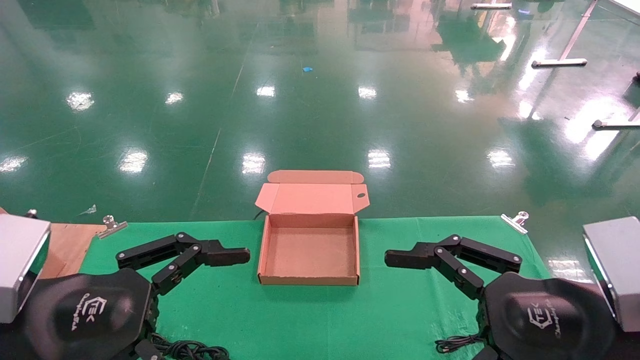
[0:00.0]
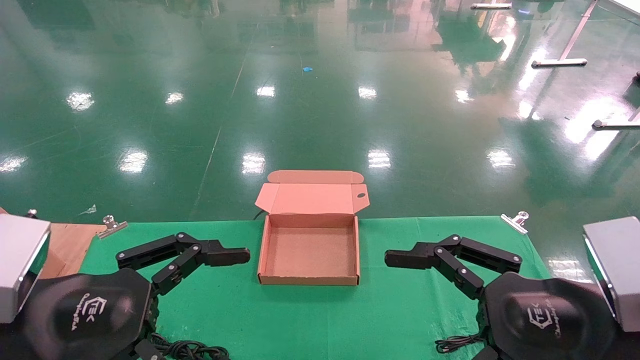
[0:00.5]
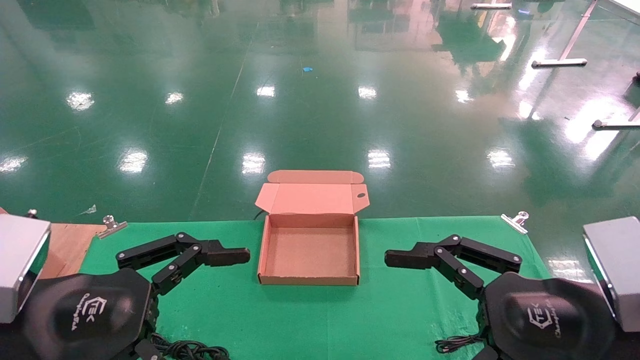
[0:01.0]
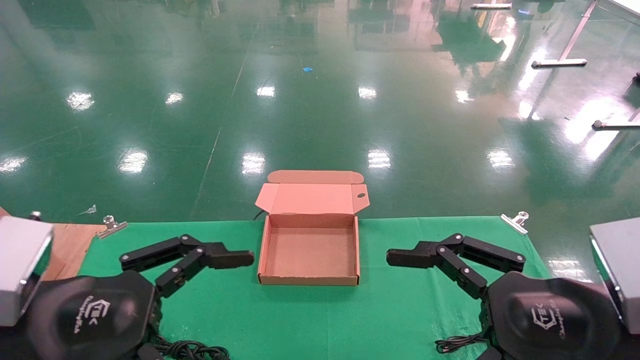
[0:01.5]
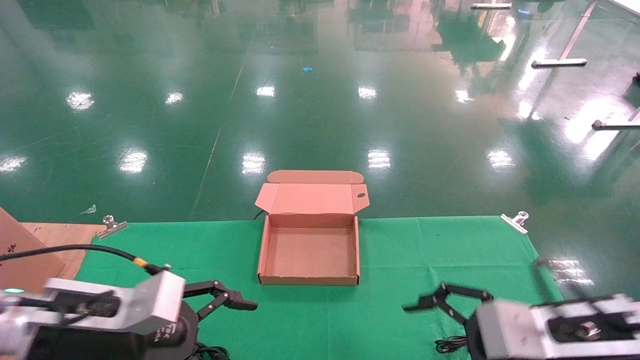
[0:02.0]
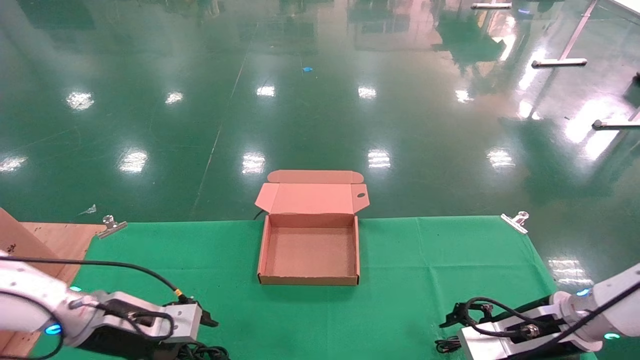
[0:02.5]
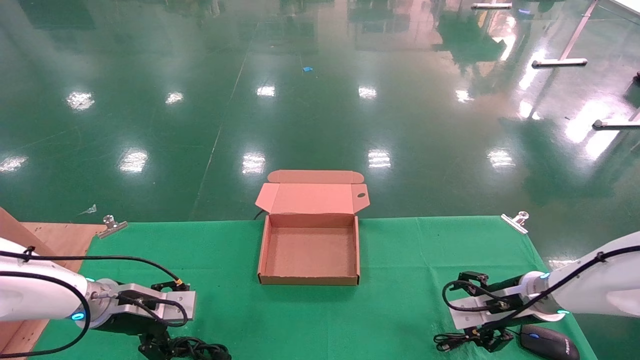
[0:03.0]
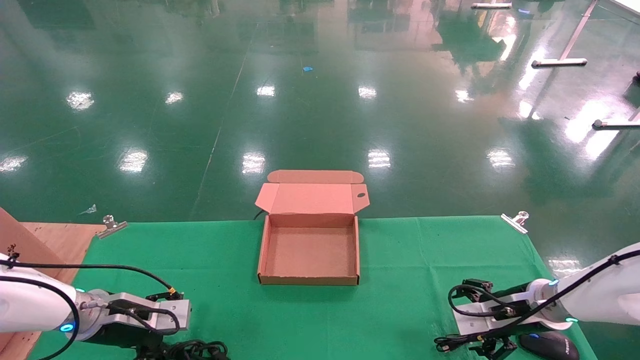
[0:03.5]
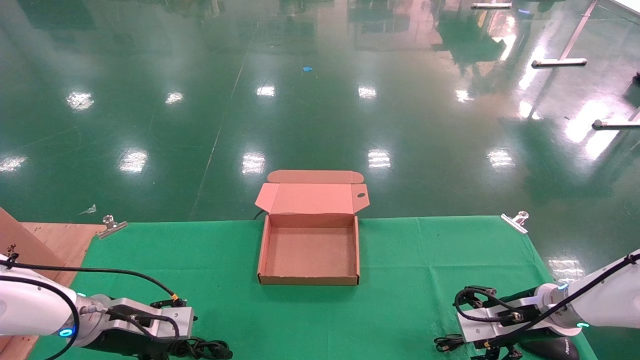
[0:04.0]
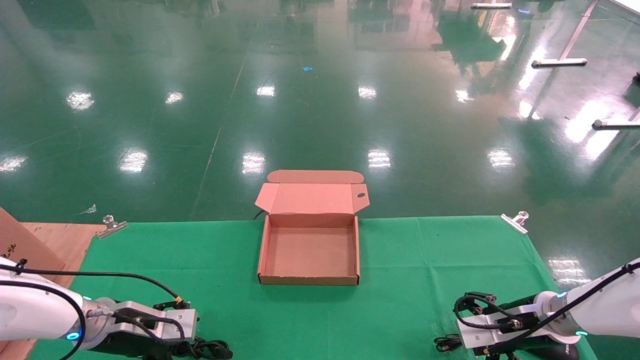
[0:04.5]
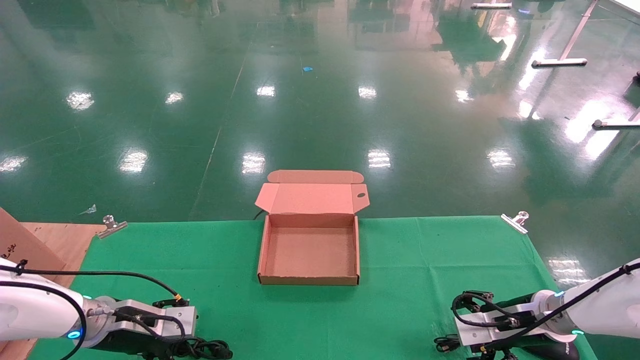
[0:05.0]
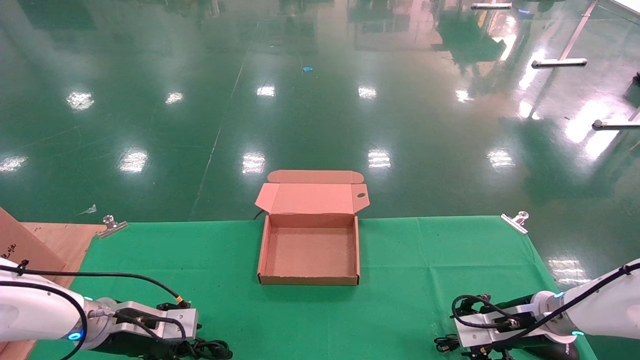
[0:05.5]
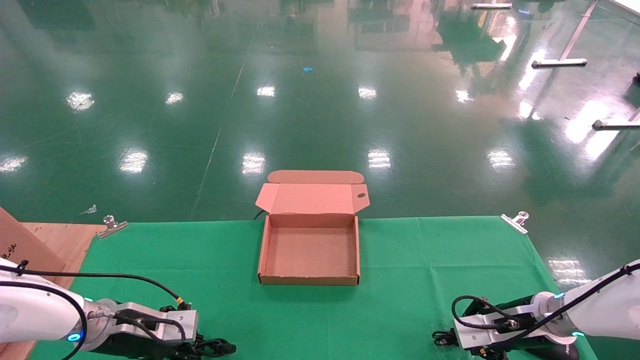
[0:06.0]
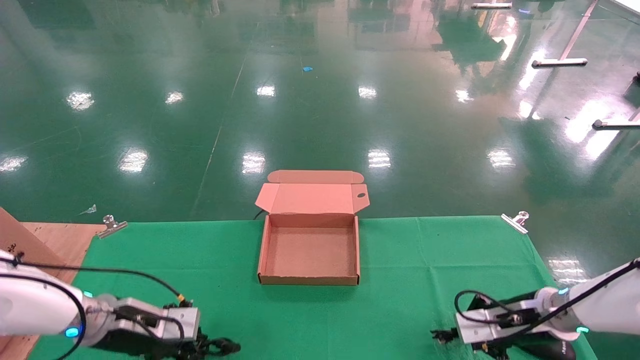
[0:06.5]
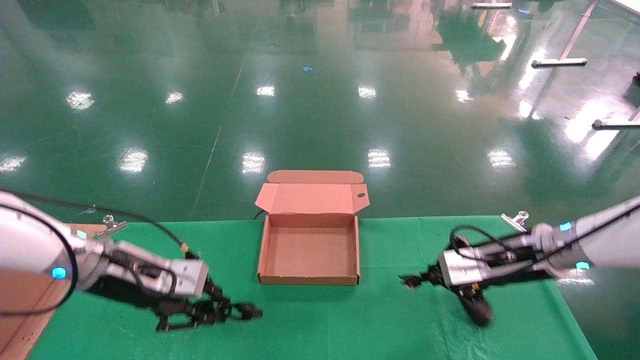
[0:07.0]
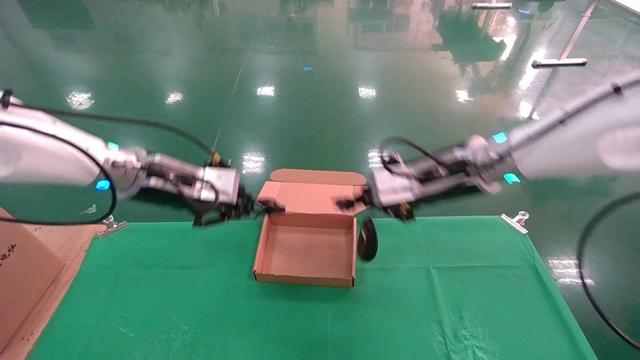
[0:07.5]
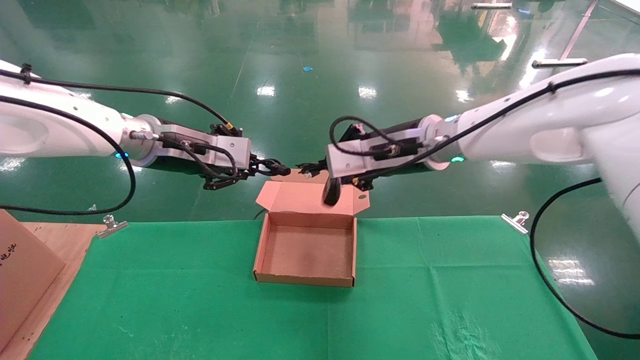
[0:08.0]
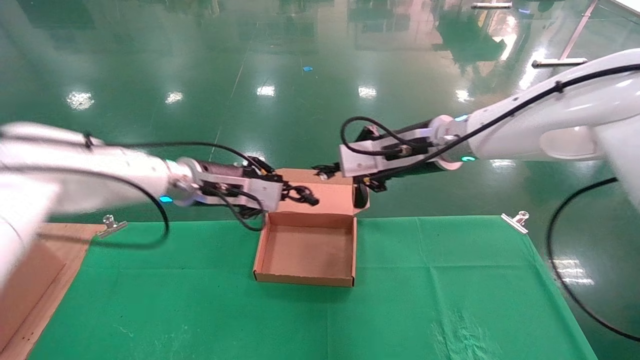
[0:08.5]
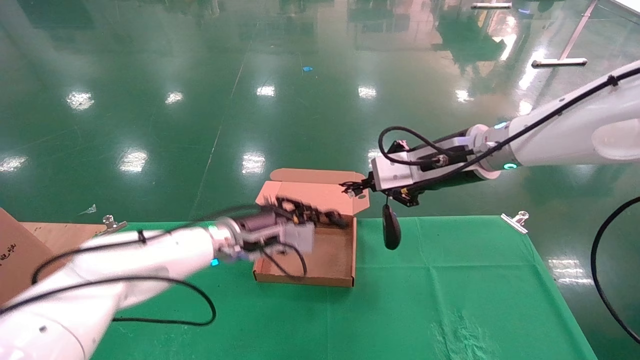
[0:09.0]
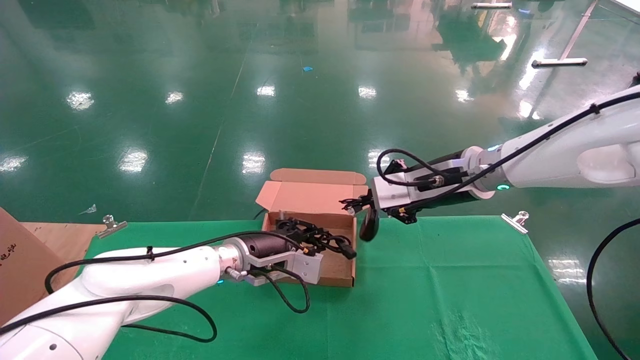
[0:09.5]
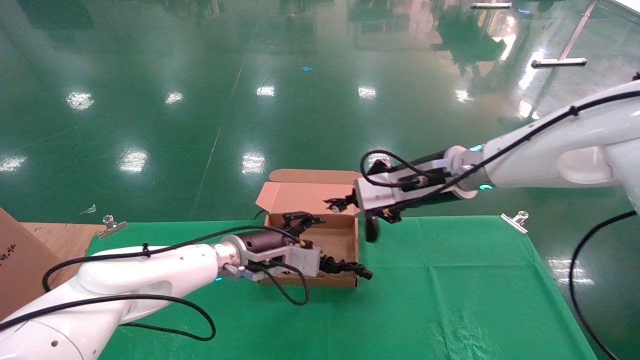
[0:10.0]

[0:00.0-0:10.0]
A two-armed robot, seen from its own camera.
Step, 0:02.5 to 0:06.5: Grab and lift both the mouse and power cord from the accessory packaging area at the same time.
0:00.0 to 0:02.0: Both grippers travel together forward and downward, approximately 10 cm.
0:02.0 to 0:04.0: The right gripper goes some 15 cm forward and downward. The left gripper heads forward, downward and to the left, covering some 15 cm.
0:04.0 to 0:06.0: The right gripper closes its fingers, while the left gripper closes up.
0:06.0 to 0:08.0: The left gripper shifts roughly 25 cm upward; the right gripper goes roughly 30 cm upward and to the left.
0:08.0 to 0:10.0: The left gripper goes approximately 20 cm downward and to the right.

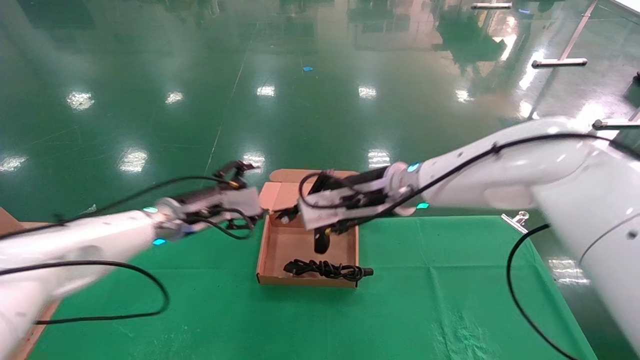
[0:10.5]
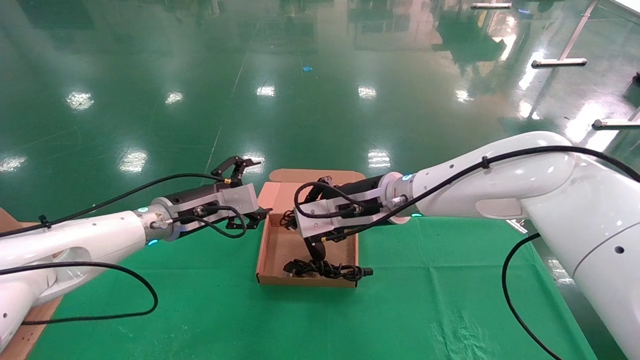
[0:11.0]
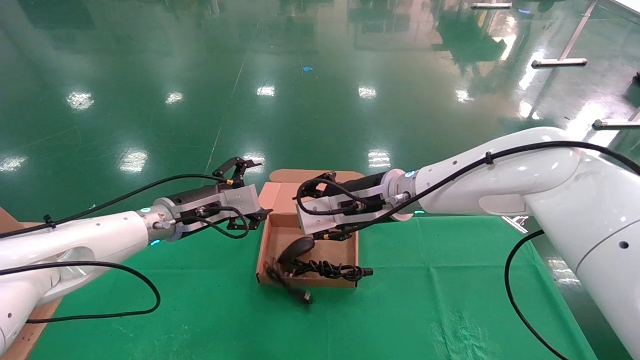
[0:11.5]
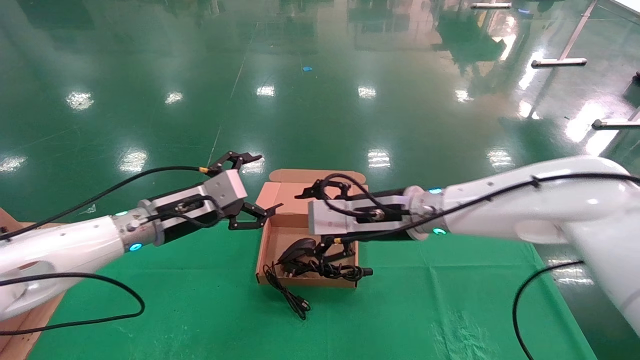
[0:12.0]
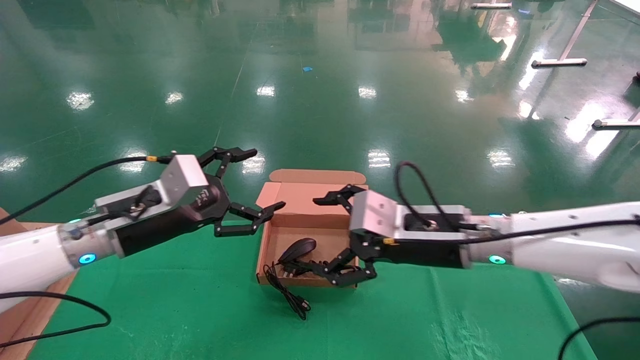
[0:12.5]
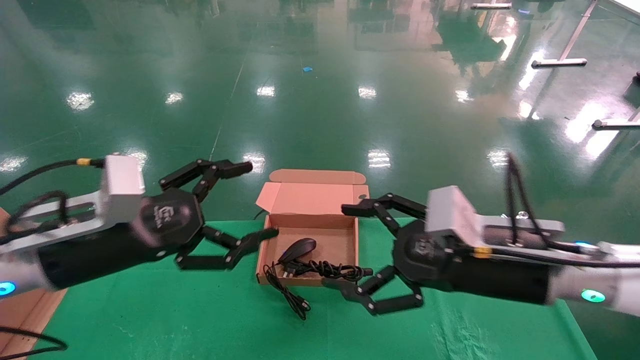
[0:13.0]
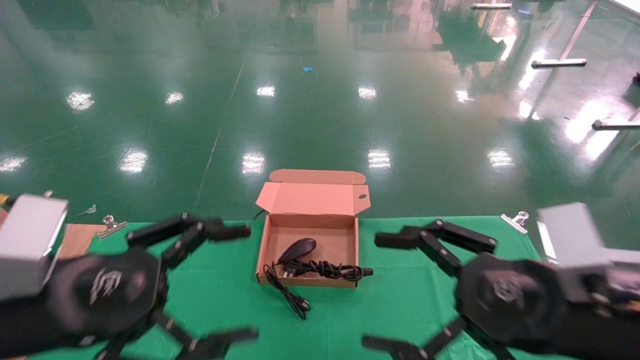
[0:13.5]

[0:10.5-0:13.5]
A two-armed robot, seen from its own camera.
Step, 0:10.5 to 0:12.5: Place the mouse and power cord into the box.
0:10.5 to 0:12.0: The right gripper opens, while the left gripper ends up about 5 cm from where it was.
0:12.0 to 0:13.5: The right gripper heads backward and to the right, covering about 25 cm. The left gripper goes about 25 cm backward.
